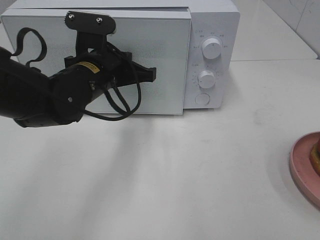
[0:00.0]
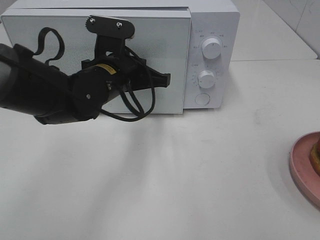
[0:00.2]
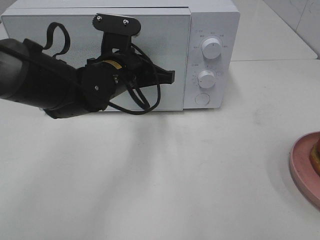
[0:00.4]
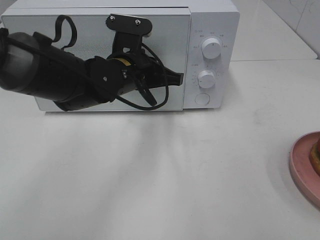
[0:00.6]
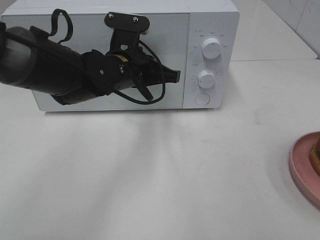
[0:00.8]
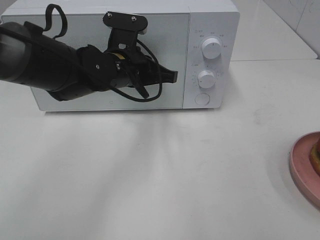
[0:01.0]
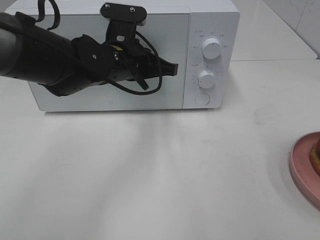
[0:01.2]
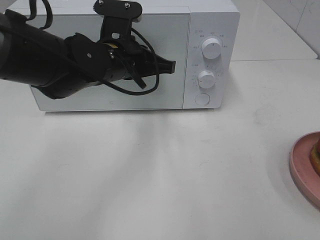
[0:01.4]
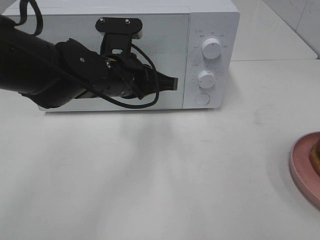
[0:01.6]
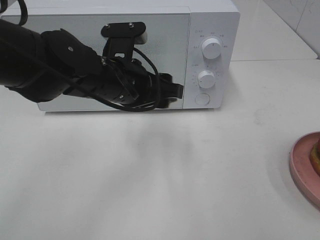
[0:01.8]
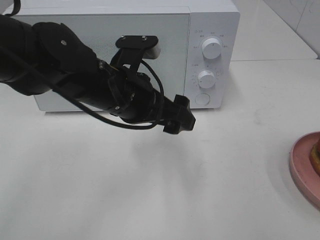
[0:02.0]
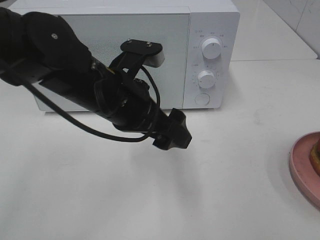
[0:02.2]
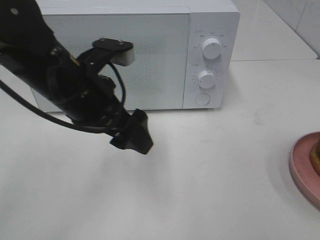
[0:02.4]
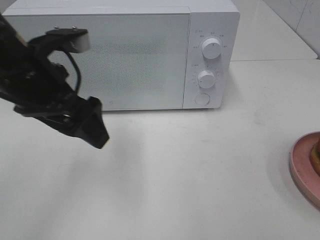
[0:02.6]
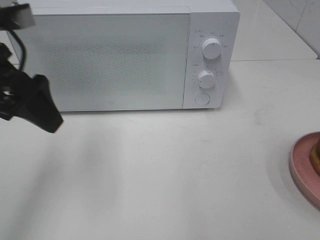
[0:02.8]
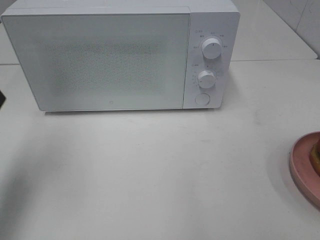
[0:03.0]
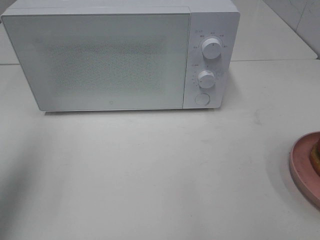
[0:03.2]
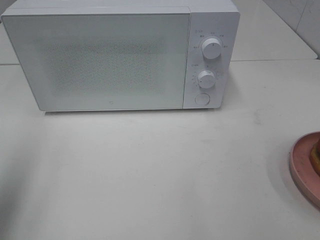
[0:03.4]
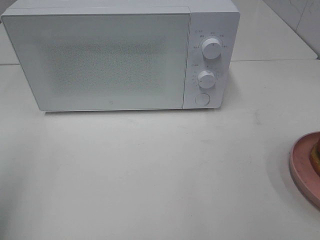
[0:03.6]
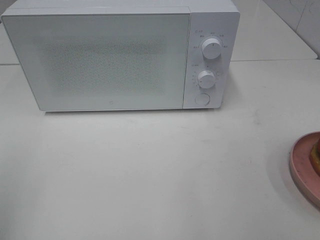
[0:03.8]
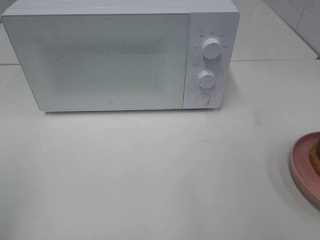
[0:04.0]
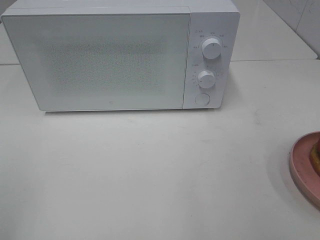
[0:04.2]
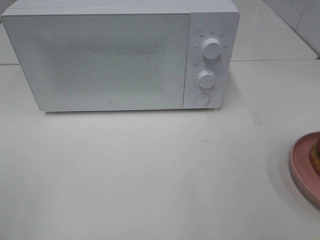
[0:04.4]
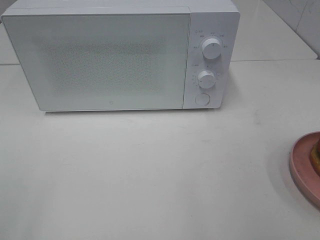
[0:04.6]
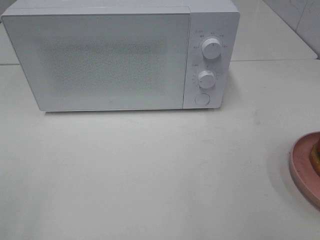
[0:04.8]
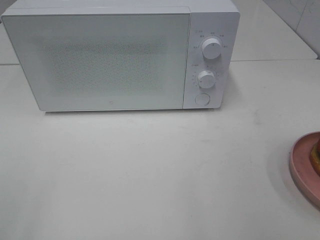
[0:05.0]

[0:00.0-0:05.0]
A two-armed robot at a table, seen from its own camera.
Task of the whole recording: Heat the burger.
0:01.6 to 0:03.4: The left gripper shifts approximately 35 cm to the left, backward and upward, and opens its fingers.
0:03.4 to 0:05.0: The left gripper shifts roughly 15 cm backward.

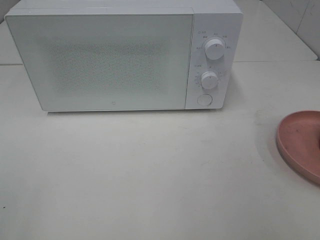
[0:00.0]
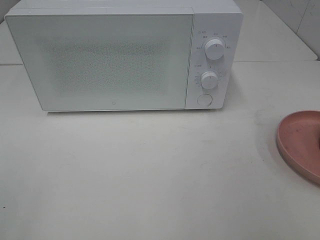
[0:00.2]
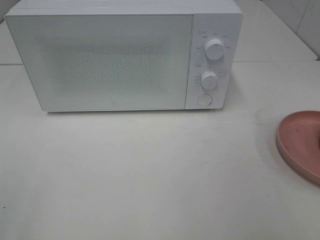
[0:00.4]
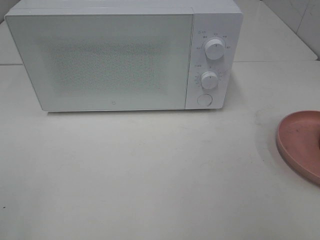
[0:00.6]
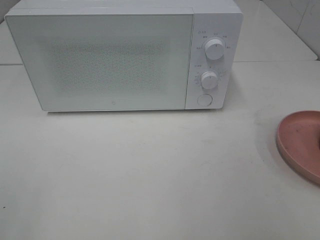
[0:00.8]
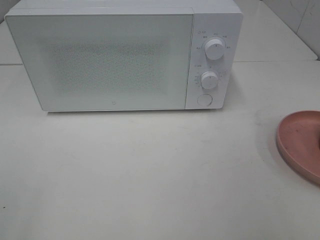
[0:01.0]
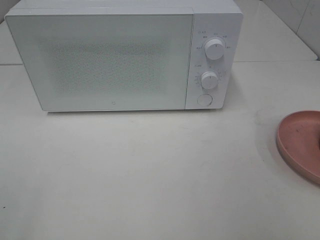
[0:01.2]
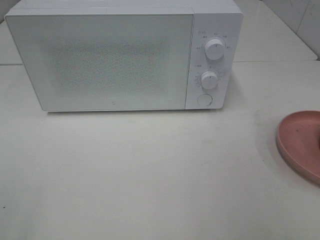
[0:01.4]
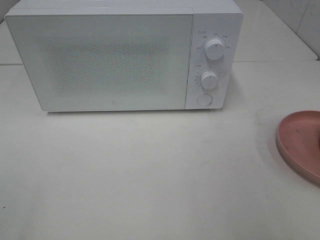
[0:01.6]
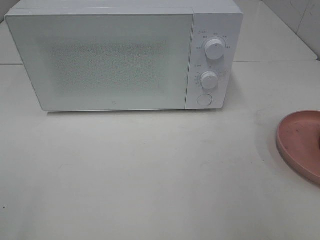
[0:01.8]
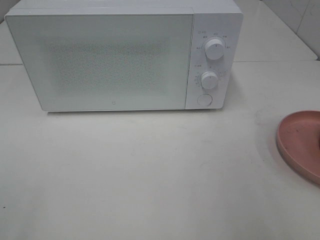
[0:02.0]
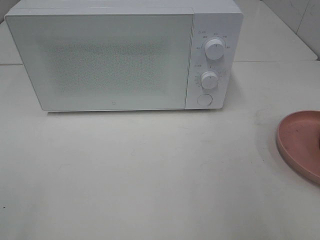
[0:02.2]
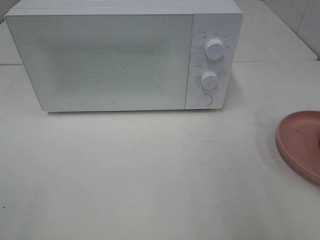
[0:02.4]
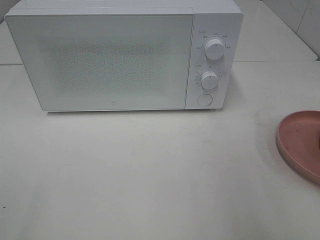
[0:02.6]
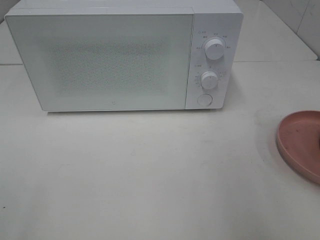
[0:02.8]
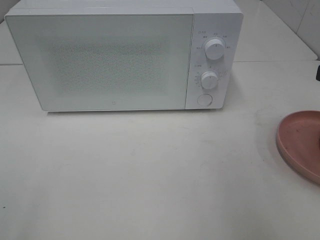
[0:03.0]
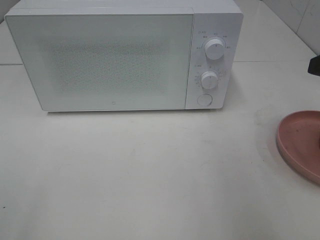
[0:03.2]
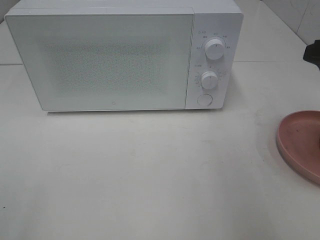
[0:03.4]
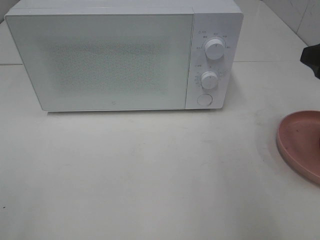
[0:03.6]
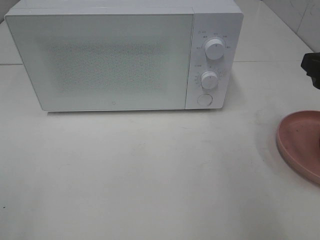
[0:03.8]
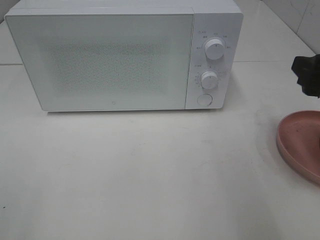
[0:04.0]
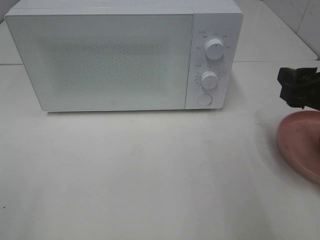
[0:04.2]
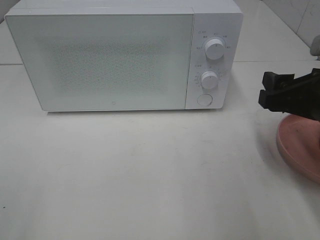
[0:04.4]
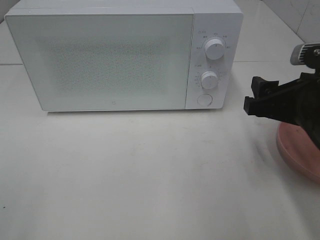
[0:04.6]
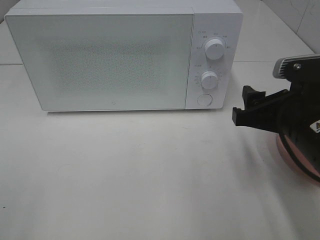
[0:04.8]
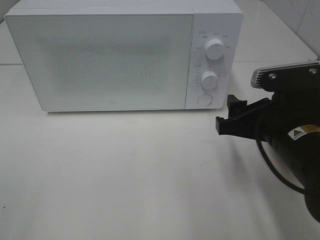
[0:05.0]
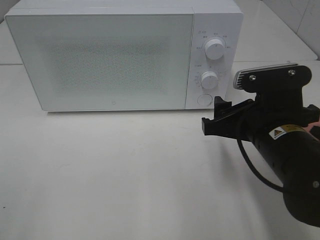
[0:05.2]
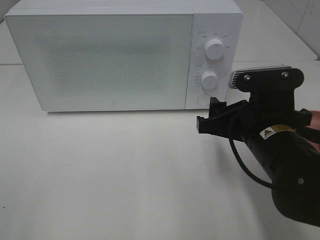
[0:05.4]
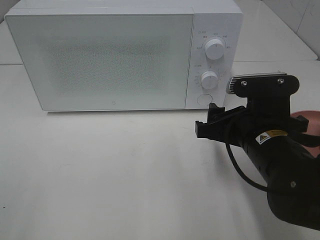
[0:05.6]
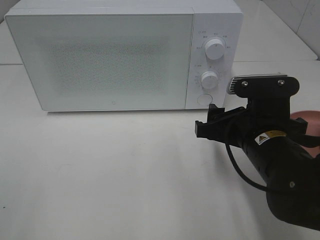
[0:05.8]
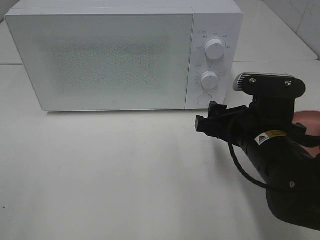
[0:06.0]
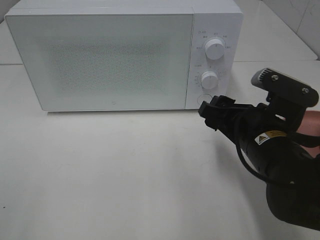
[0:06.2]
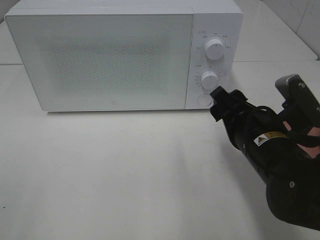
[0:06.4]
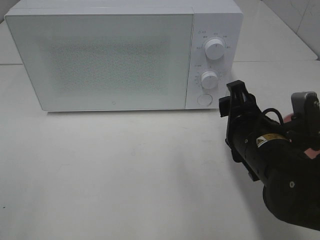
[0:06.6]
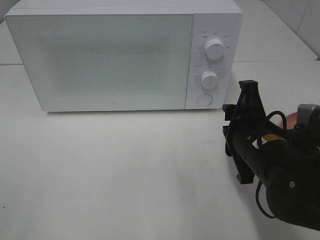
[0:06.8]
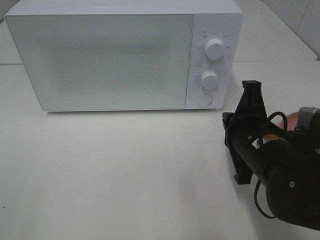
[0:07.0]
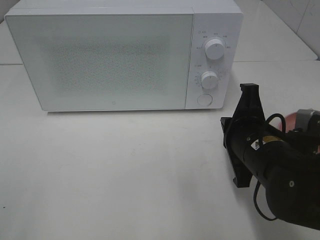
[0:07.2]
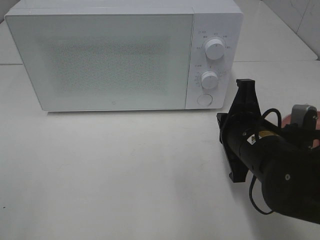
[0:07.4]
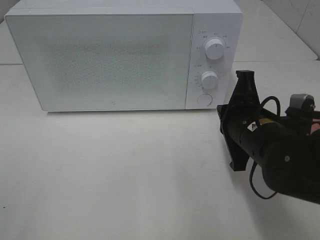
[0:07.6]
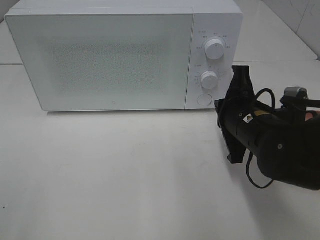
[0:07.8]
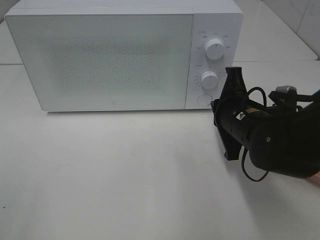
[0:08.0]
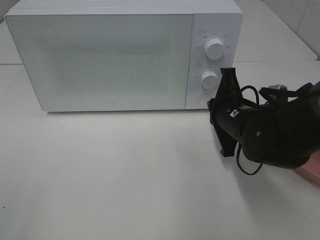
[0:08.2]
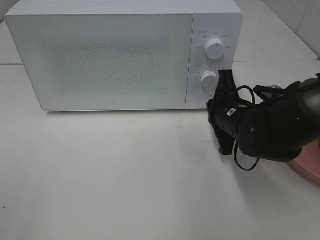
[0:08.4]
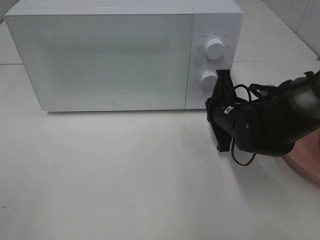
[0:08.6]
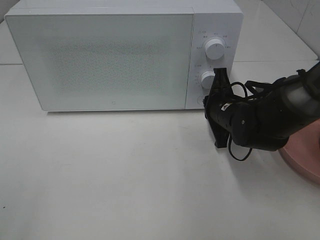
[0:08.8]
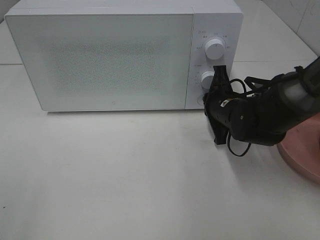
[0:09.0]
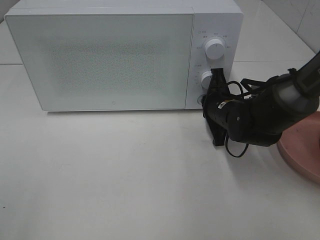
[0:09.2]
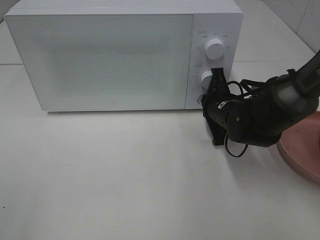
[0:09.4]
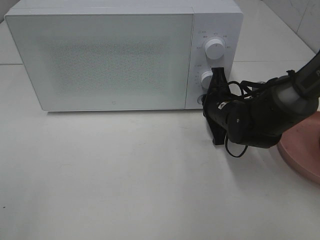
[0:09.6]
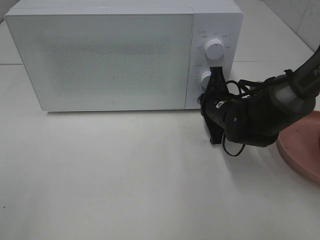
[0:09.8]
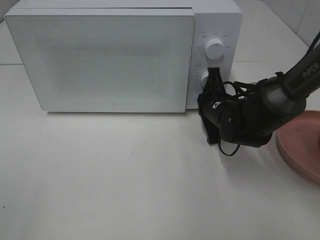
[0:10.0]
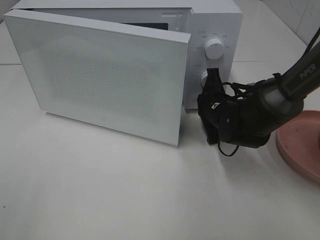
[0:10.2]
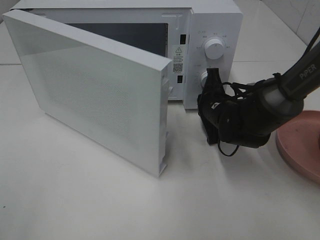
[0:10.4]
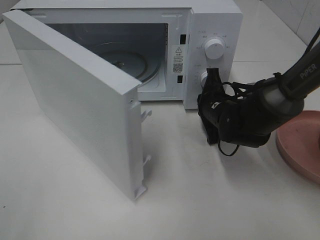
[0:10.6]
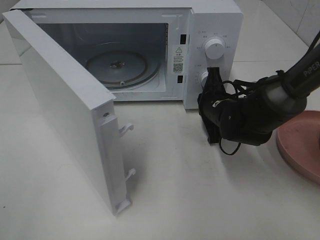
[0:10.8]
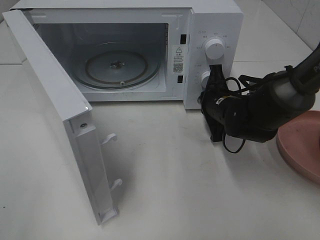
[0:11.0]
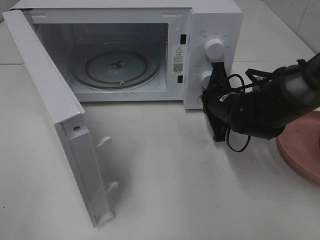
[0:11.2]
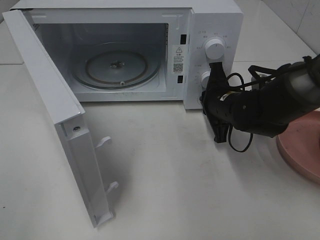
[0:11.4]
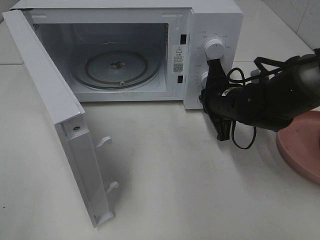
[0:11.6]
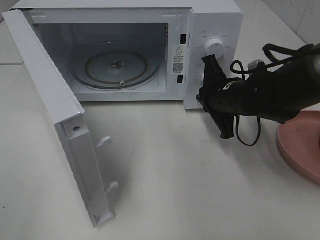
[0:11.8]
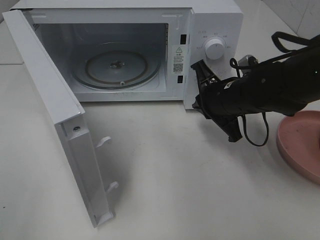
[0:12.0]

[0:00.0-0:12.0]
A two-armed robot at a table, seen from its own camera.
Task of the whole recording: Heat the burger.
Step, 0:00.0 to 0:11.6: Right hand: press the switch.
0:03.0 to 0:04.4: The right gripper shifts roughly 10 cm downward.
0:04.4 to 0:06.0: The right gripper goes approximately 10 cm to the left and downward.
0:06.0 to 0:07.6: The right gripper closes.
0:07.6 to 0:09.0: The right gripper is displaced forward and downward by roughly 10 cm.
0:10.4 to 0:12.0: The right gripper goes roughly 5 cm upward.

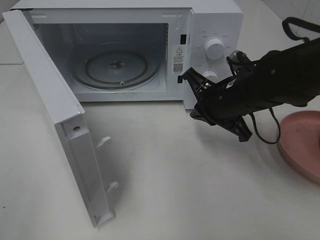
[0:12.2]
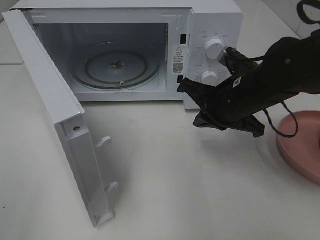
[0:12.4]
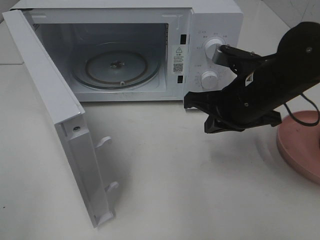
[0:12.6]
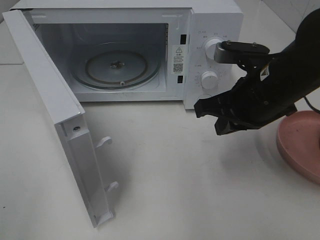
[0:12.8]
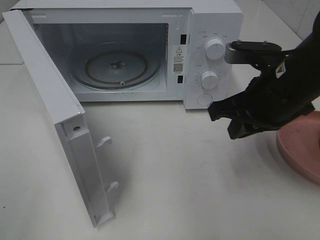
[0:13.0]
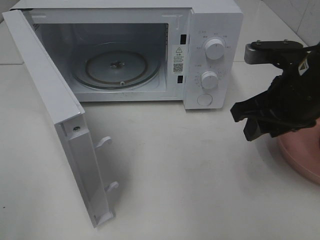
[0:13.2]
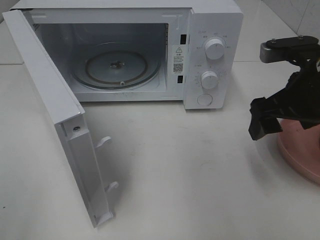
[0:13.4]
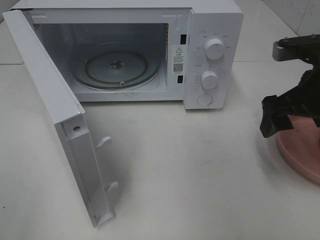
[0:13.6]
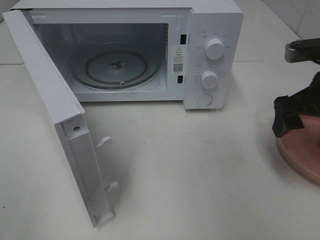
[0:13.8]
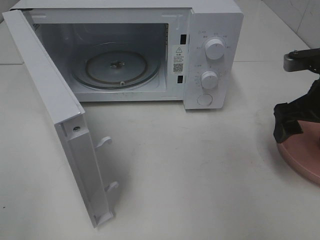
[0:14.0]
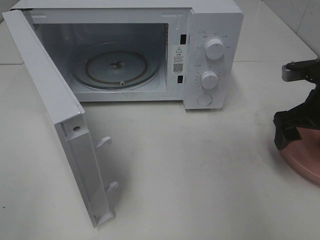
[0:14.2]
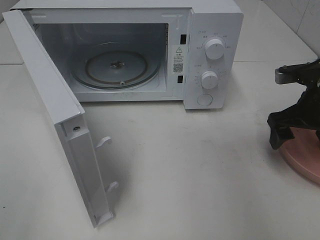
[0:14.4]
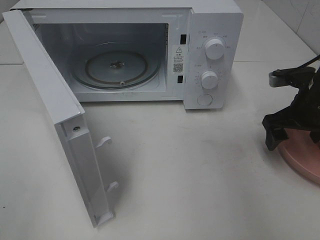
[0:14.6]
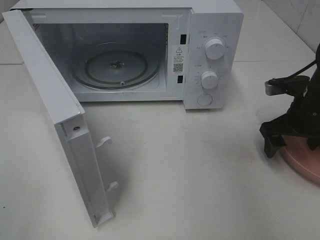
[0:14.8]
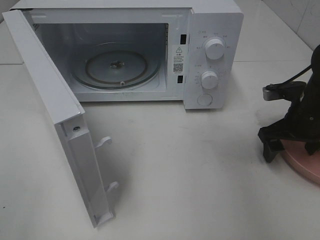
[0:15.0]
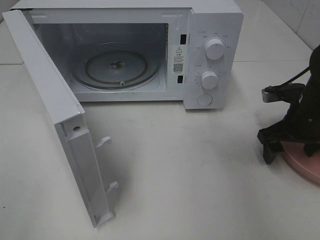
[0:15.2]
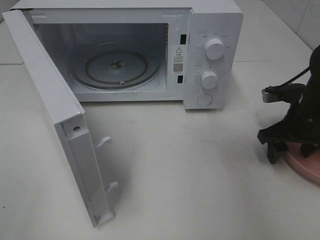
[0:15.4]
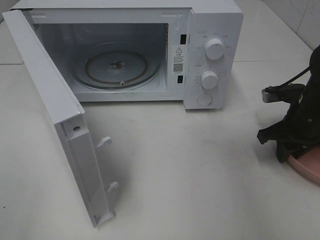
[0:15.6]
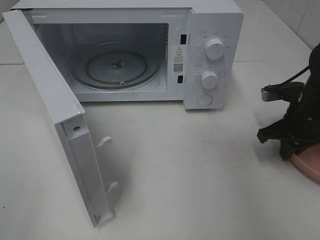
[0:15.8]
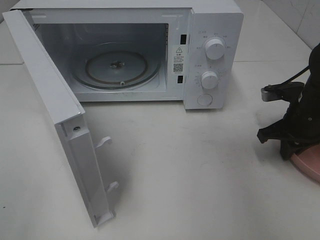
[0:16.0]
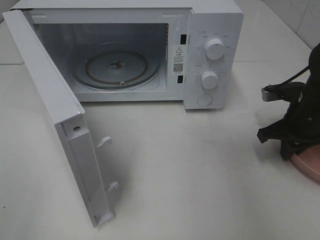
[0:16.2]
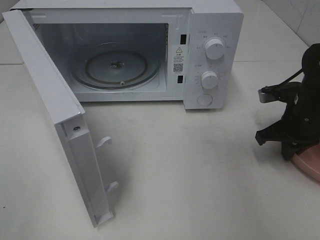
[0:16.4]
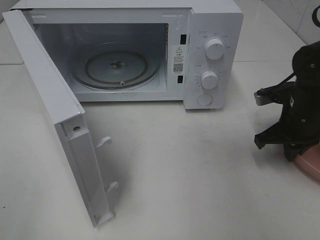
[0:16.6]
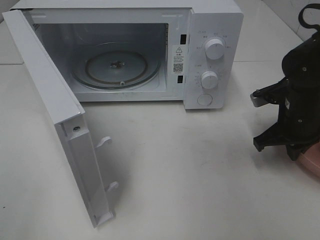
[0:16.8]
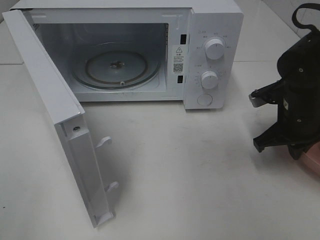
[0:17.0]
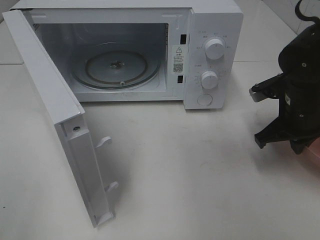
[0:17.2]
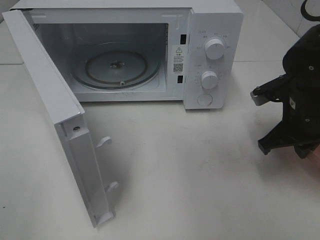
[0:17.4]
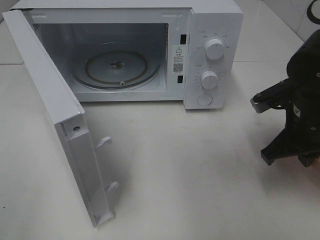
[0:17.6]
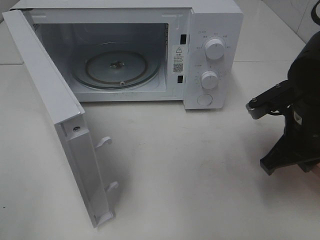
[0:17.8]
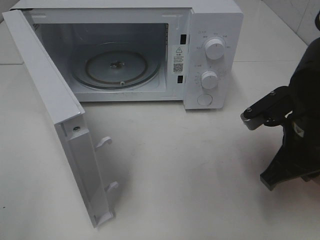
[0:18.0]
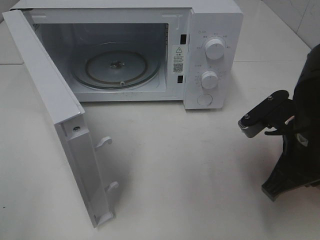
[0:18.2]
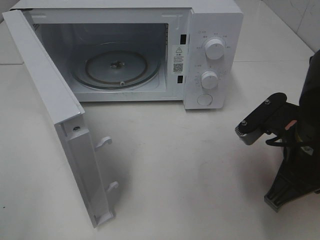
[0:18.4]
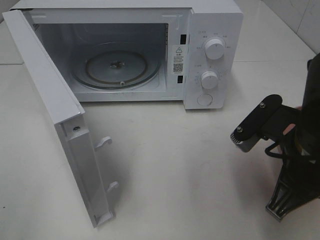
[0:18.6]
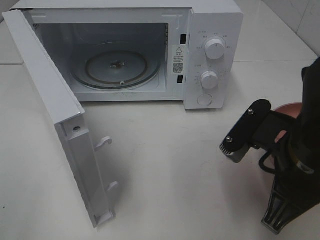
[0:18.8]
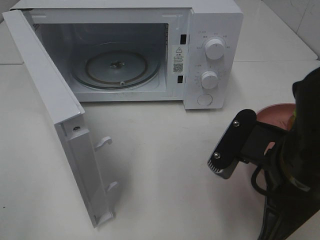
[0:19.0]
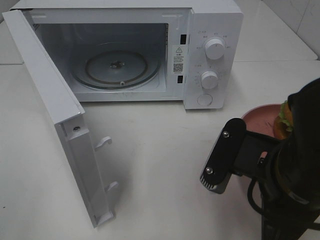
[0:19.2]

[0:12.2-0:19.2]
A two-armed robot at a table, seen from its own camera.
Task of the whole recording: Heat the burger.
Step, 0:12.2 to 0:16.8: Right hand: grab the plate with the hamburger.
0:12.2 to 0:13.6: The right gripper moves to the right and upward, approximately 15 cm, and opens.
0:13.6 to 0:15.0: The right gripper moves downward and forward, some 10 cm.
0:15.0 to 0:16.4: The right gripper closes up.
0:16.4 to 0:17.8: The right gripper is displaced backward, to the left and upward by roughly 10 cm.
0:17.8 to 0:19.2: The right gripper travels backward and to the left by approximately 15 cm.
